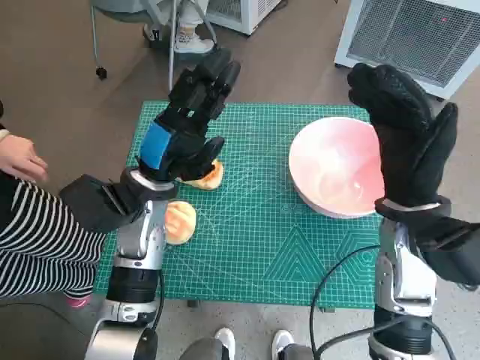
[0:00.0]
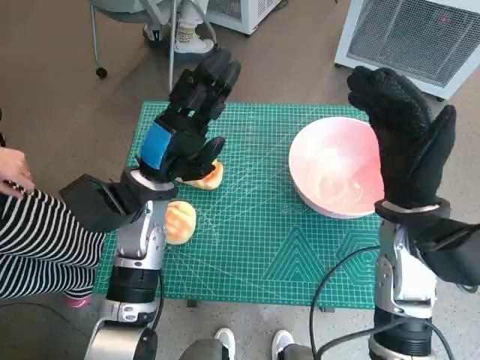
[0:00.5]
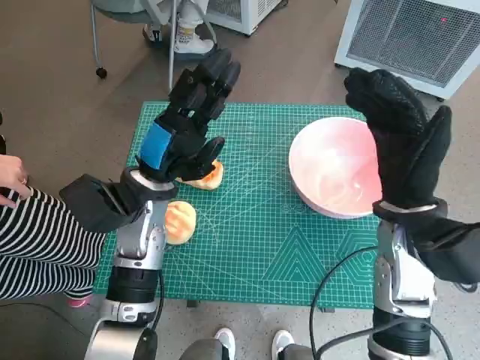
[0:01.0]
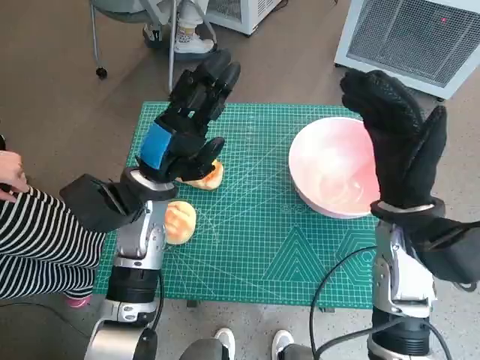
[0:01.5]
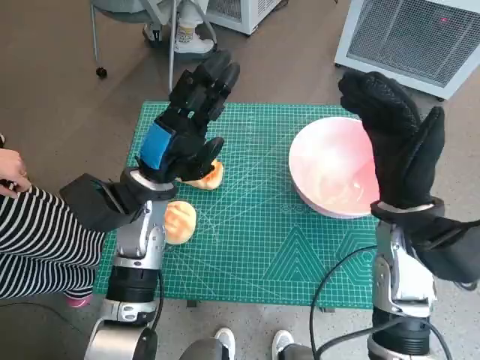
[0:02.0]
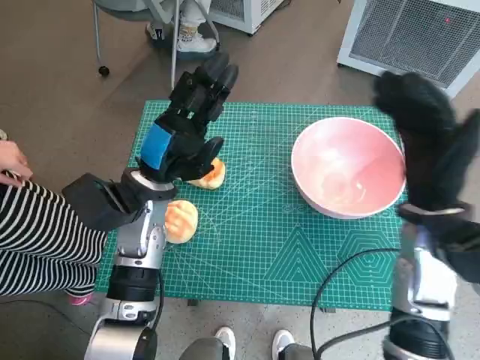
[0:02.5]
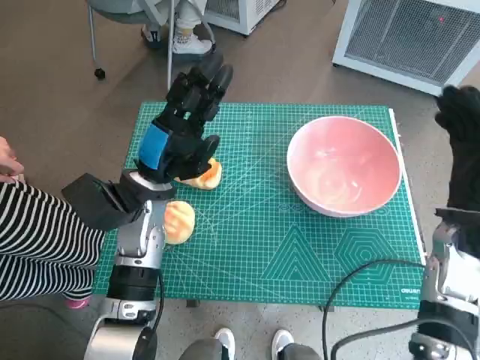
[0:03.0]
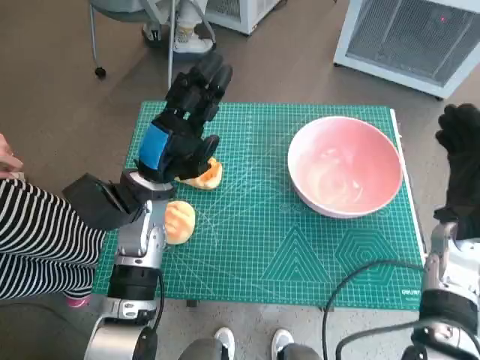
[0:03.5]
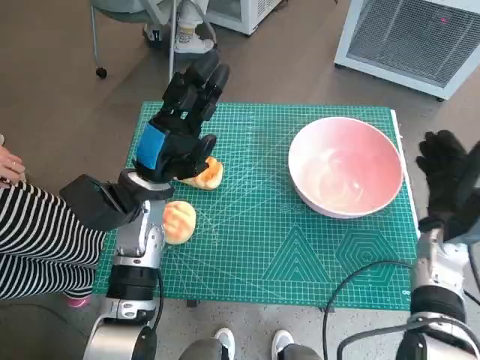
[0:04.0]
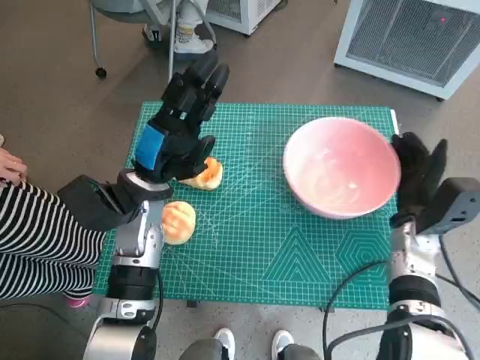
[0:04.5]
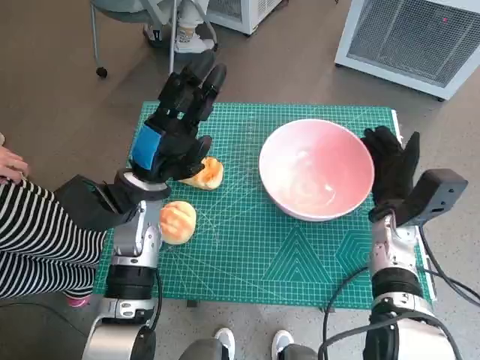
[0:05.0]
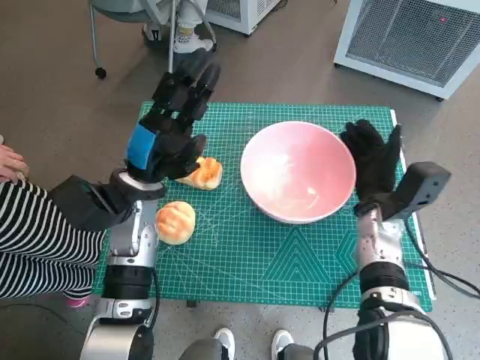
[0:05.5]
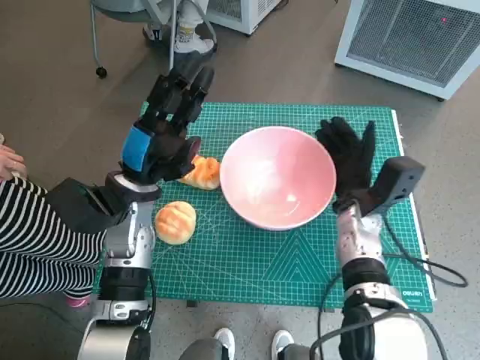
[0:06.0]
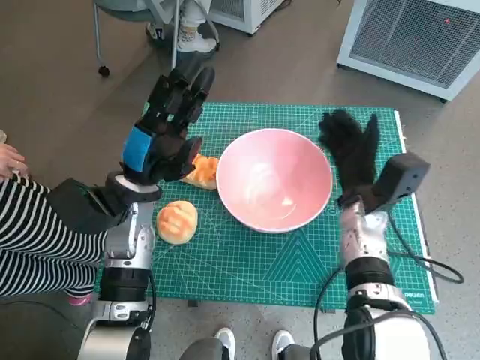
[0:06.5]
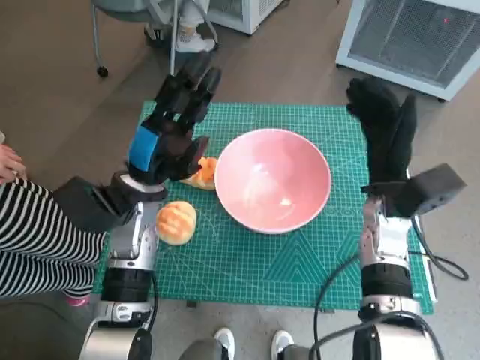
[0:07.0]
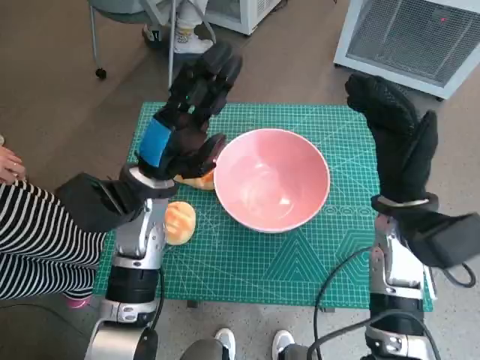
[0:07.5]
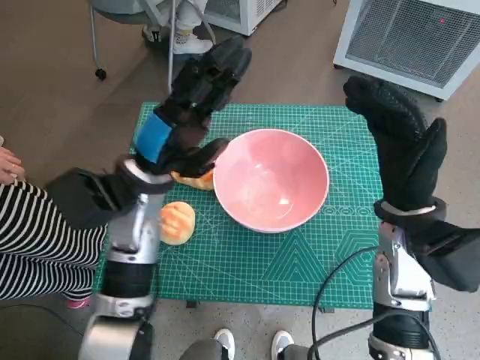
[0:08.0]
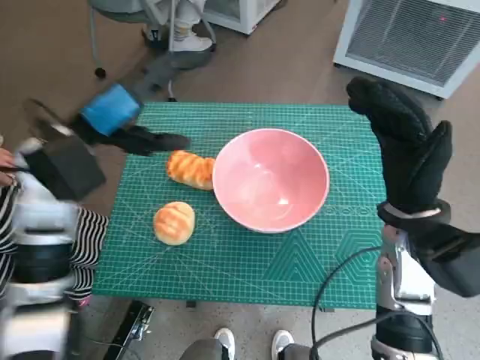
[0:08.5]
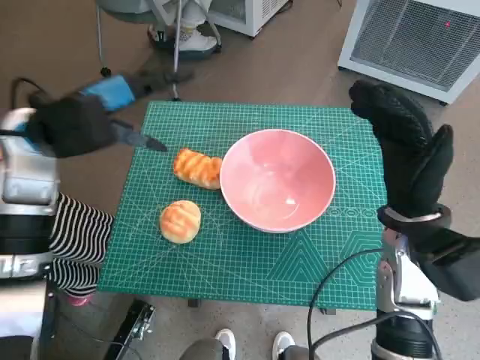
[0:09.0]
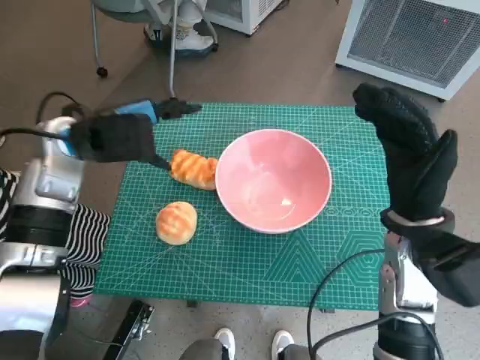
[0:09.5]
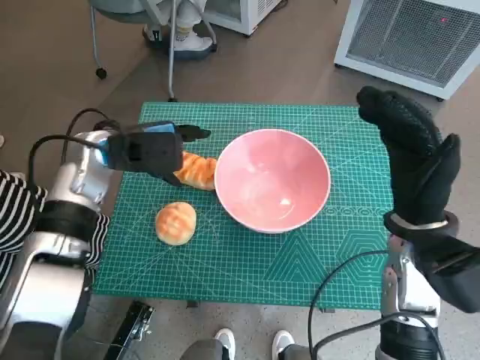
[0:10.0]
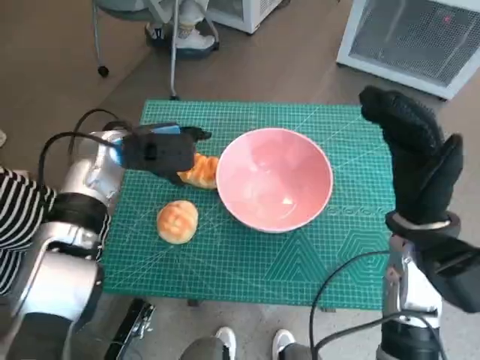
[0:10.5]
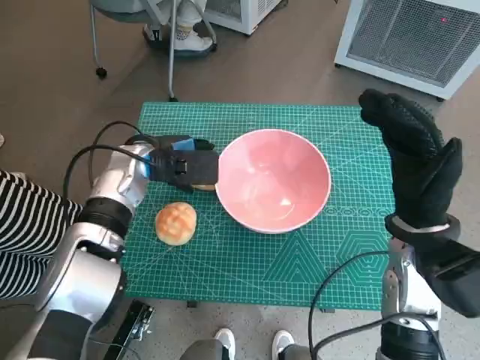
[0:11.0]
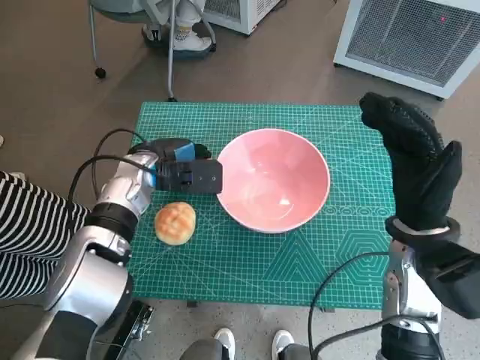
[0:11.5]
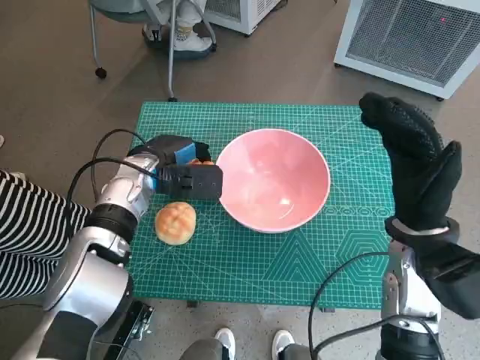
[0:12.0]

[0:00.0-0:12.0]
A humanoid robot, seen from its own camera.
Task of the whole recording: Push the bowl into the center of the table and put the bread into the bowl.
Step, 0:00.0 to 0:06.5: Move the pink bowl to the center of table with right hand.
Step, 0:07.0 to 0:11.5: Grasp the long bread with left hand.
0:02.0 to 0:04.0: The right hand goes some 15 cm downward and to the right.
0:04.0 to 0:06.0: The right hand travels to the left by some 10 cm.
0:06.0 to 0:08.0: The right hand shifts approximately 10 cm upward and backward.
0:08.0 to 0:10.0: The left hand travels to the left and forward by approximately 10 cm.
0:10.0 to 0:12.0: The left hand heads downward, covering approximately 5 cm.

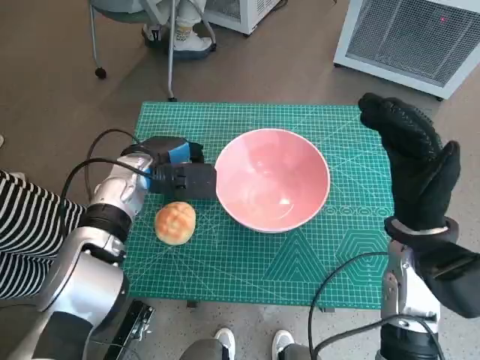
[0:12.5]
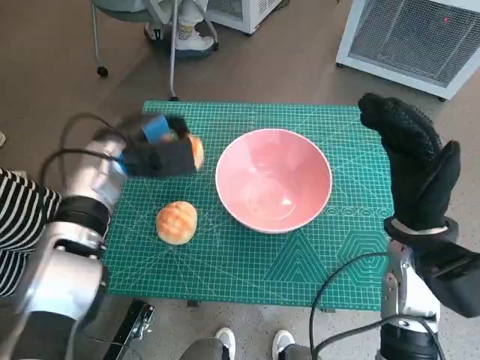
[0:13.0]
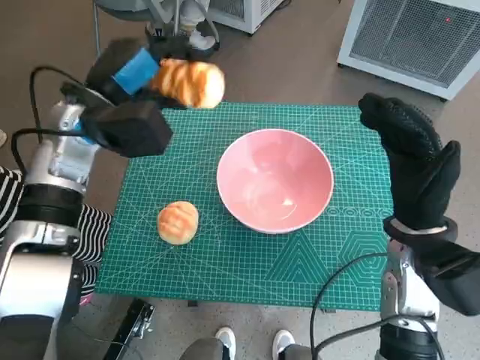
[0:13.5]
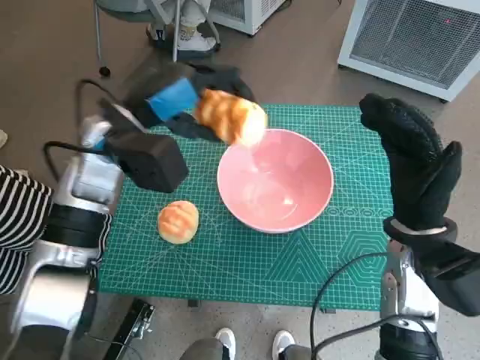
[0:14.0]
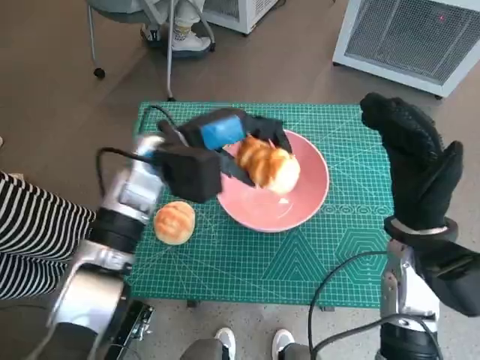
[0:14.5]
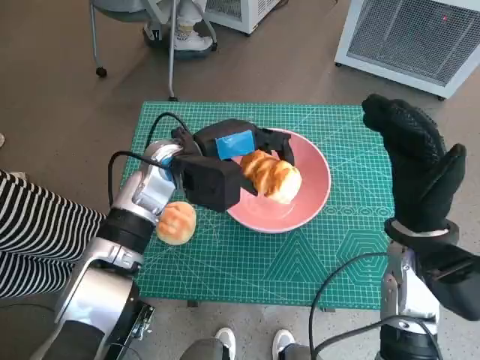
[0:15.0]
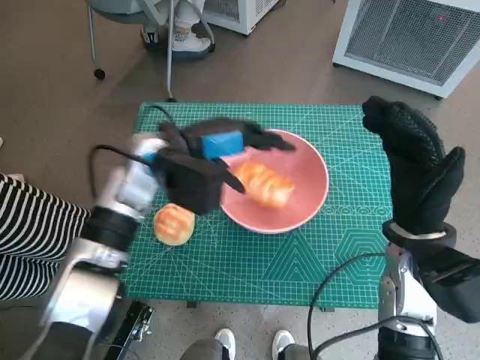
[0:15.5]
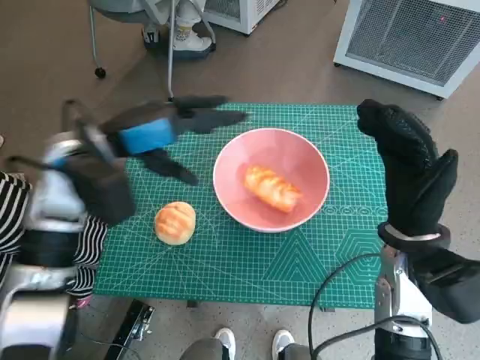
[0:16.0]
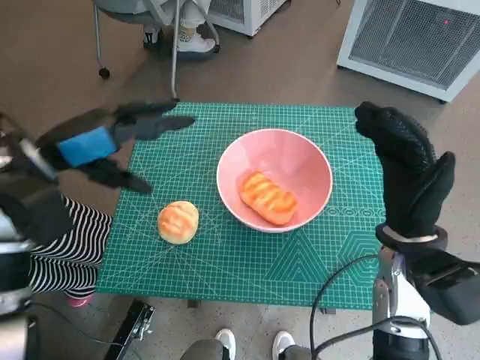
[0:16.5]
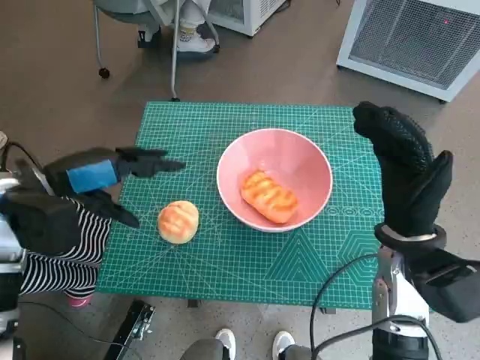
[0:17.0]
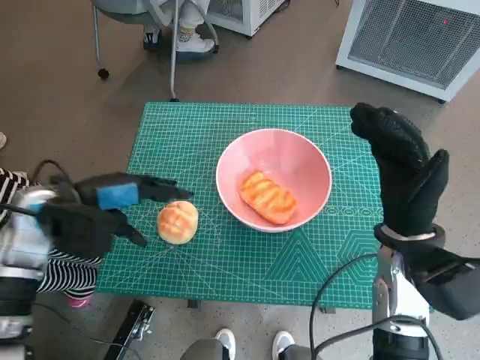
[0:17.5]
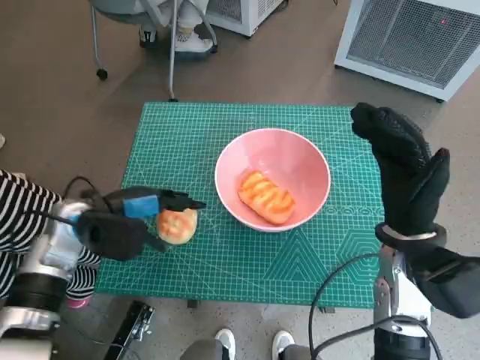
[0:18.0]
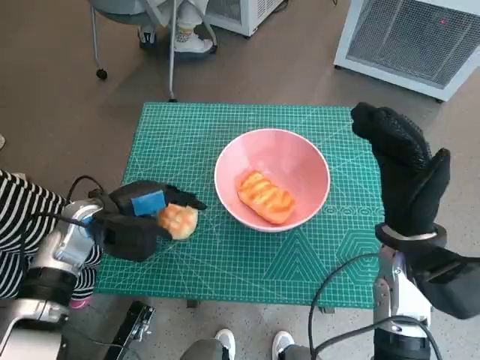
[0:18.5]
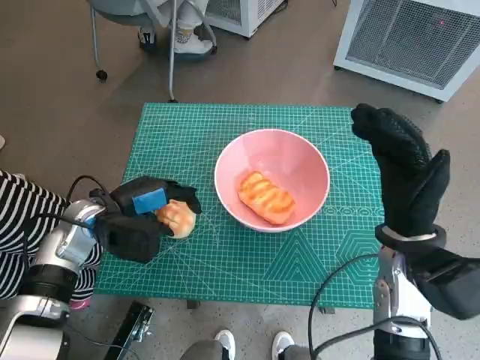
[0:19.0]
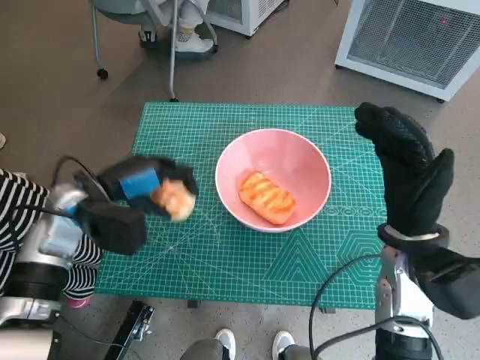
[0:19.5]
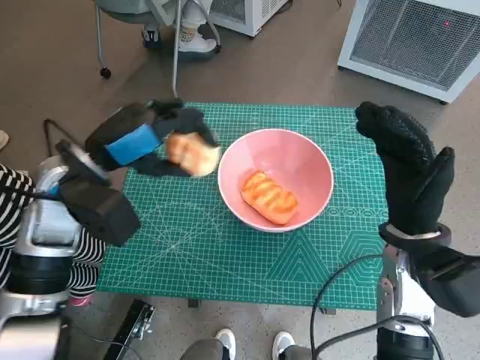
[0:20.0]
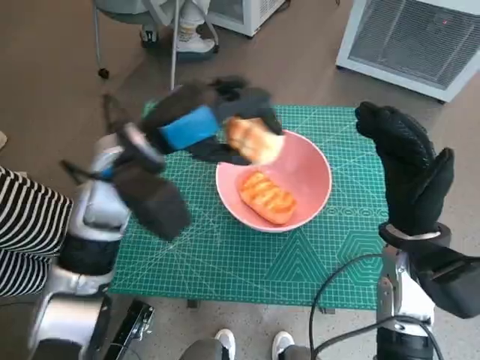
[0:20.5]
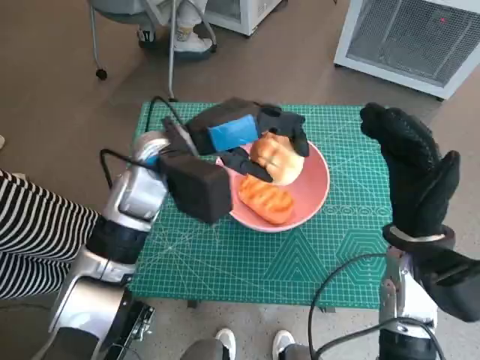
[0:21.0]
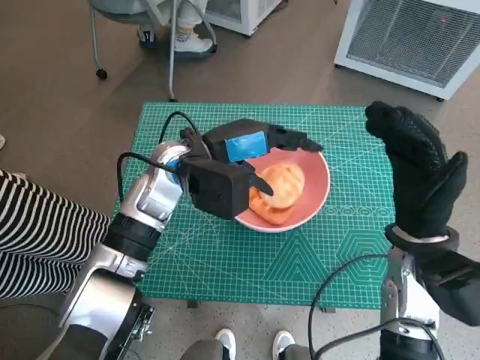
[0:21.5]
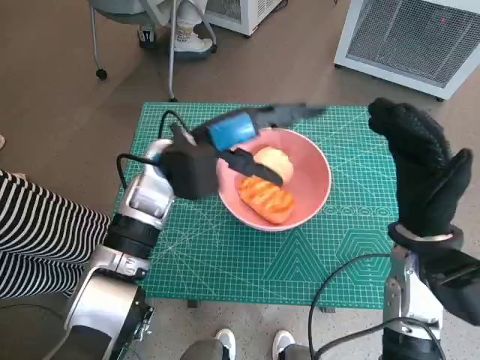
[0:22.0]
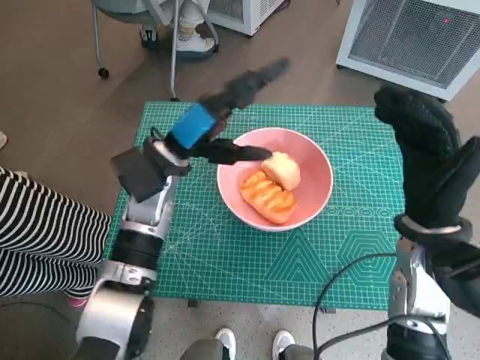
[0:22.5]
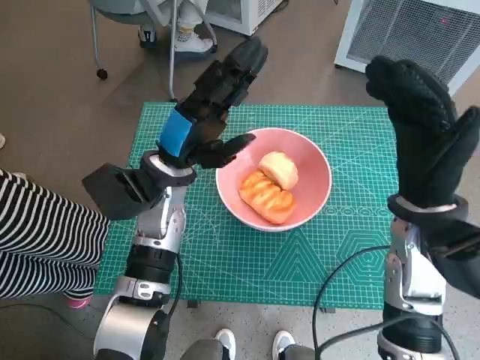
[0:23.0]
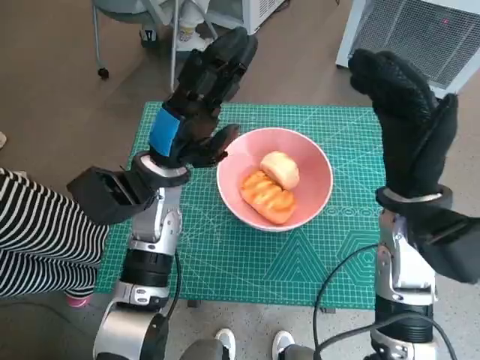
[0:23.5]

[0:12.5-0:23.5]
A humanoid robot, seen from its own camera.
Task of the whole recording: Push the bowl into the center of the table and put the bread into the bowl.
Step, 0:12.5 to 0:15.5: Place the long bread in pink bowl with left hand.
Step, 0:16.0 to 0:18.5: Grasp the round bread with left hand.
Step, 0:19.0 to 0:22.0: Place the round bread in pink bowl with left hand.
0:12.5 to 0:14.5: The left hand heads upward and to the right, covering some 10 cm.
0:14.5 to 0:16.0: The left hand is displaced to the left by some 5 cm.
0:16.0 to 0:18.0: The left hand moves downward and to the left, about 10 cm.
0:18.0 to 0:20.0: The left hand shifts roughly 10 cm upward.
0:20.0 to 0:21.5: The left hand heads to the right, covering some 10 cm.
0:21.5 to 0:23.5: The right hand ends up about 5 cm from where it was.

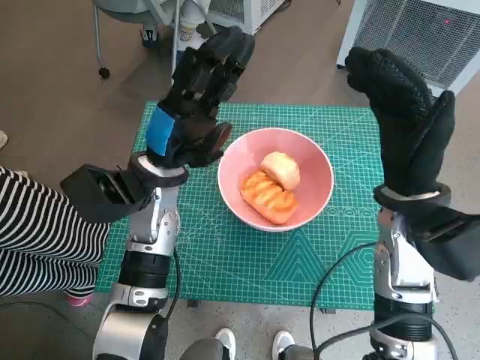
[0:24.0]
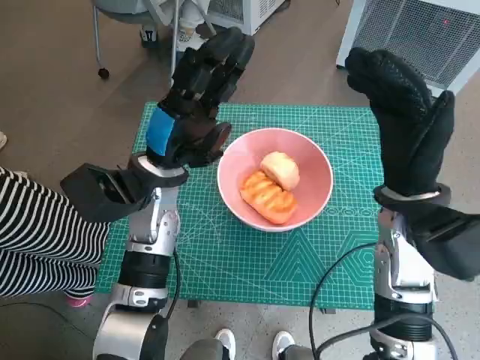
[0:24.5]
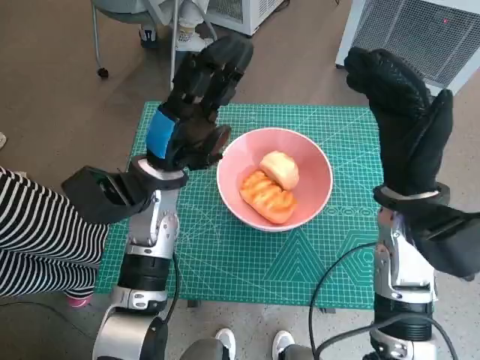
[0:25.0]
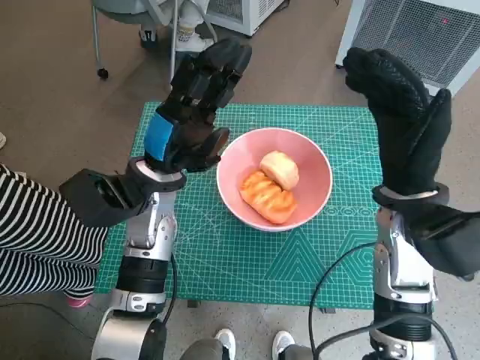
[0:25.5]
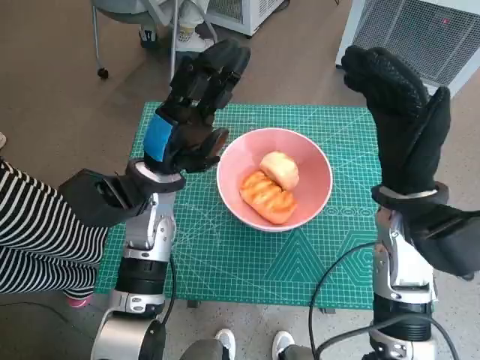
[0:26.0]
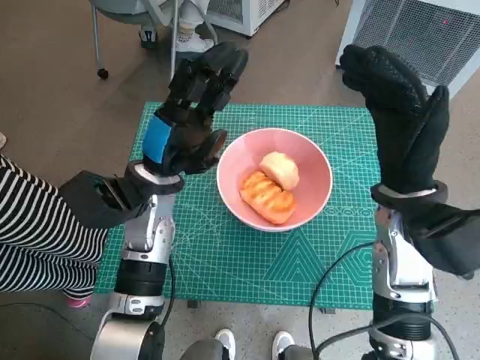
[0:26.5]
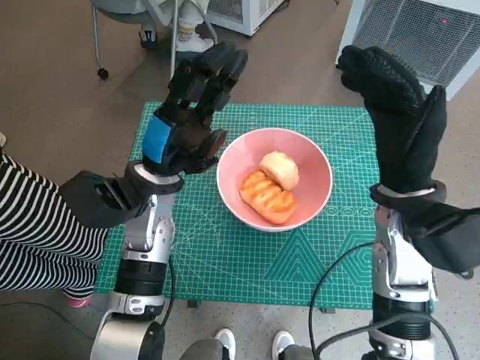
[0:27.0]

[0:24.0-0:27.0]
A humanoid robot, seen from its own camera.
Task of the whole recording: Push the bowl into the center of the table and put the bread into the bowl.
0:24.0 to 0:27.0: Both hands stay put.
